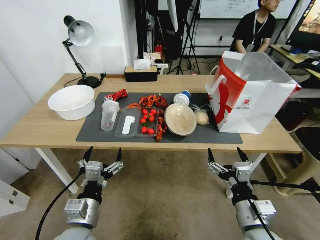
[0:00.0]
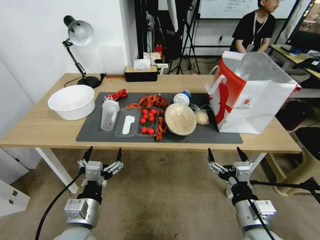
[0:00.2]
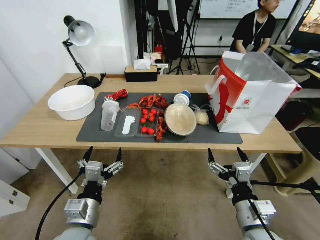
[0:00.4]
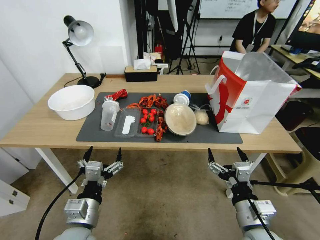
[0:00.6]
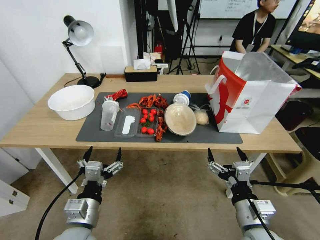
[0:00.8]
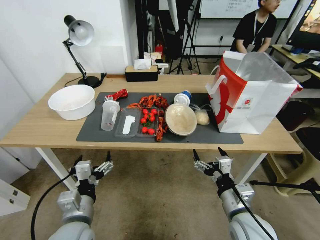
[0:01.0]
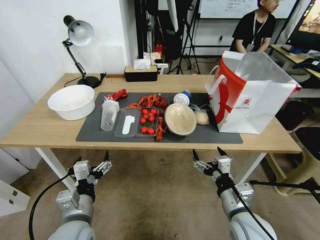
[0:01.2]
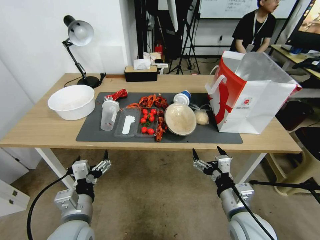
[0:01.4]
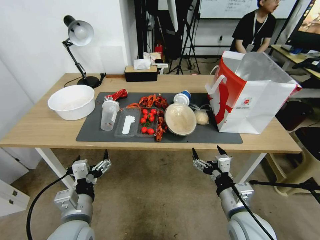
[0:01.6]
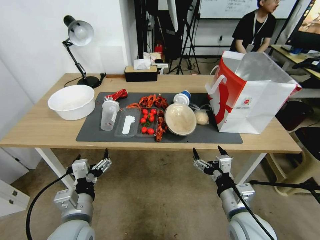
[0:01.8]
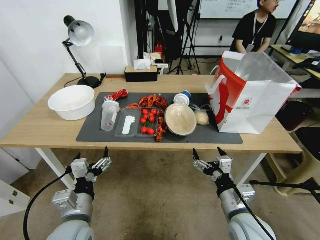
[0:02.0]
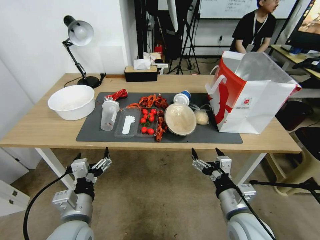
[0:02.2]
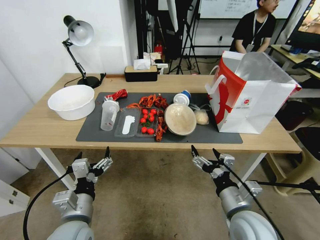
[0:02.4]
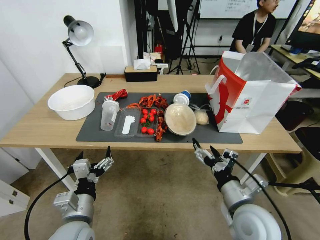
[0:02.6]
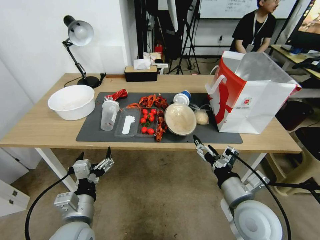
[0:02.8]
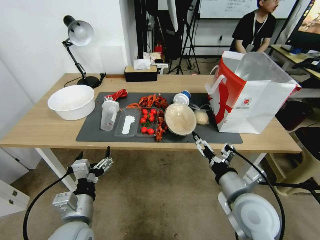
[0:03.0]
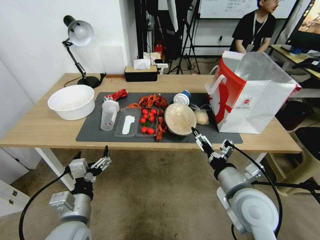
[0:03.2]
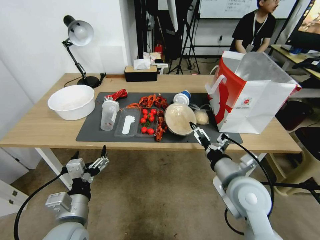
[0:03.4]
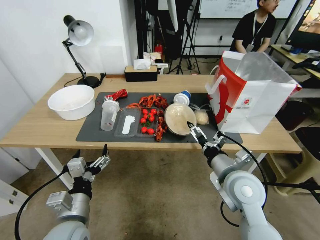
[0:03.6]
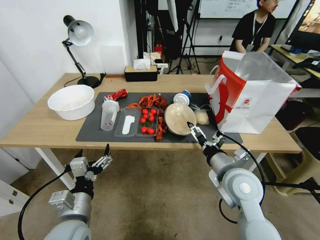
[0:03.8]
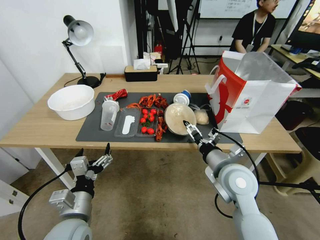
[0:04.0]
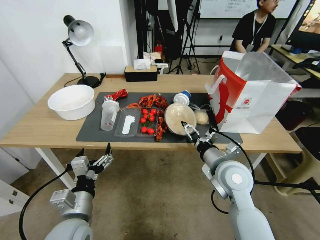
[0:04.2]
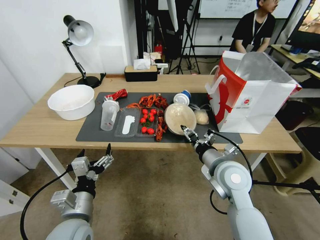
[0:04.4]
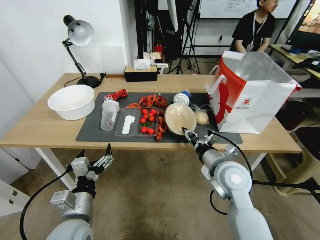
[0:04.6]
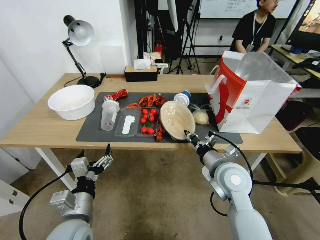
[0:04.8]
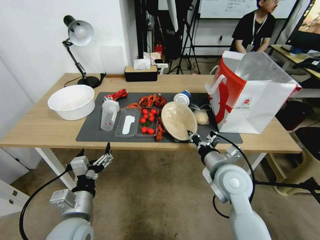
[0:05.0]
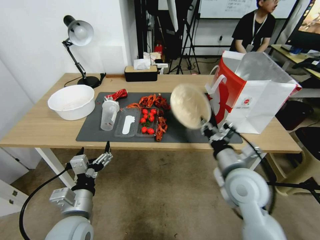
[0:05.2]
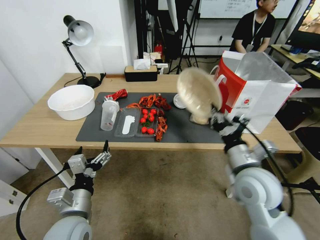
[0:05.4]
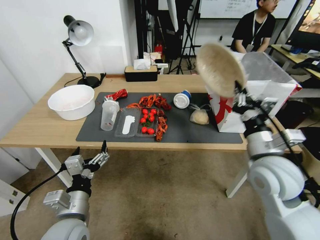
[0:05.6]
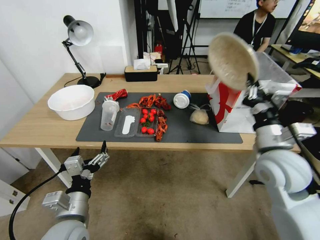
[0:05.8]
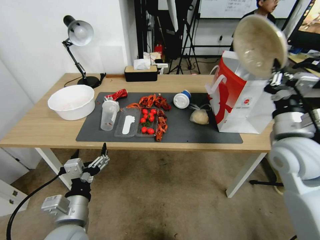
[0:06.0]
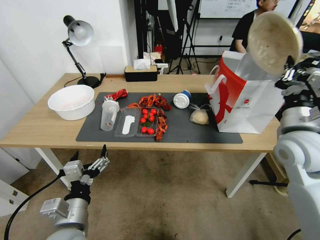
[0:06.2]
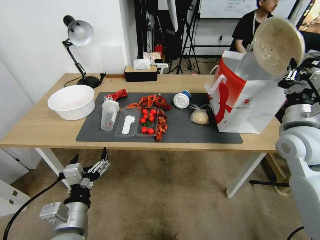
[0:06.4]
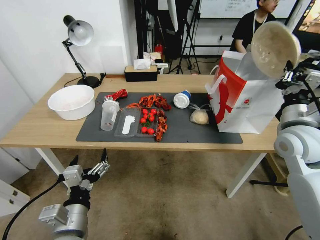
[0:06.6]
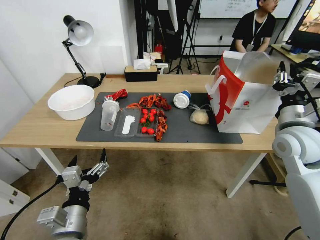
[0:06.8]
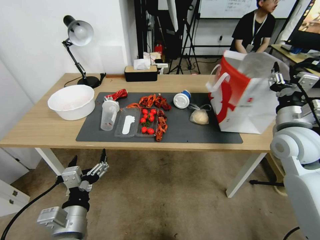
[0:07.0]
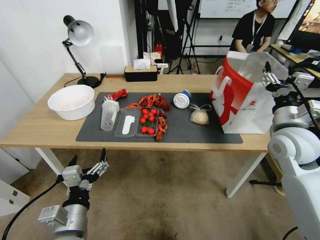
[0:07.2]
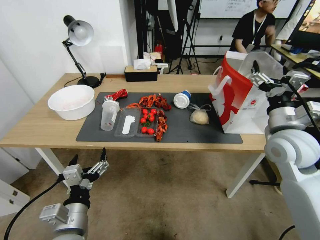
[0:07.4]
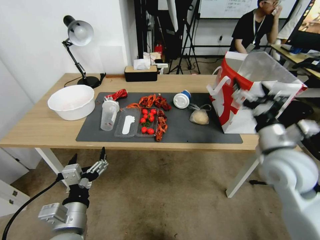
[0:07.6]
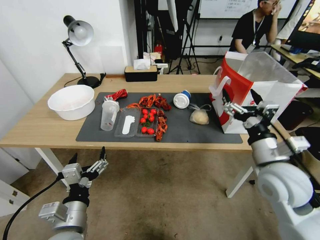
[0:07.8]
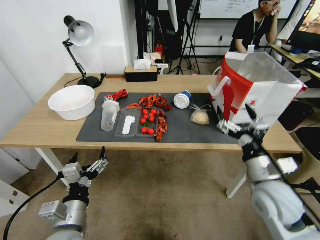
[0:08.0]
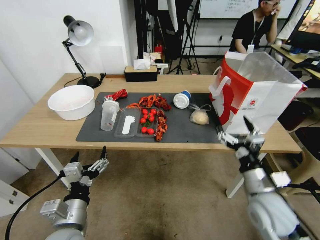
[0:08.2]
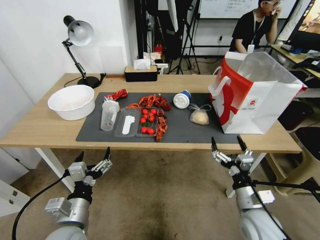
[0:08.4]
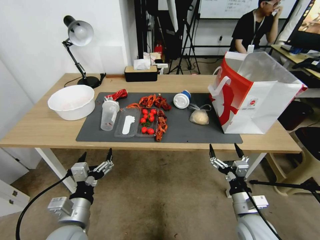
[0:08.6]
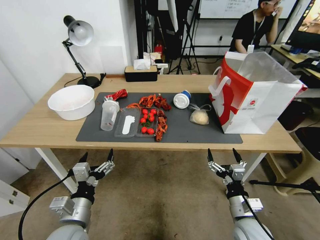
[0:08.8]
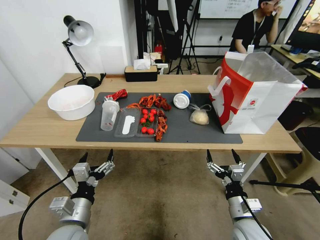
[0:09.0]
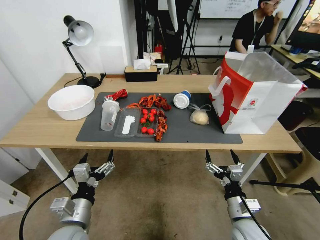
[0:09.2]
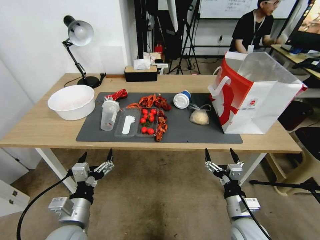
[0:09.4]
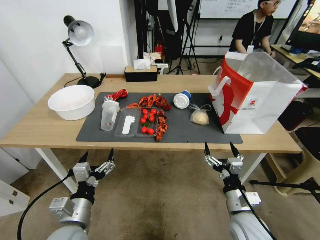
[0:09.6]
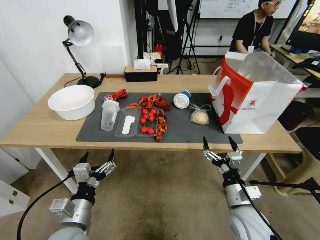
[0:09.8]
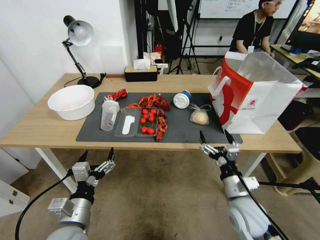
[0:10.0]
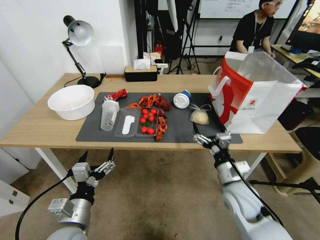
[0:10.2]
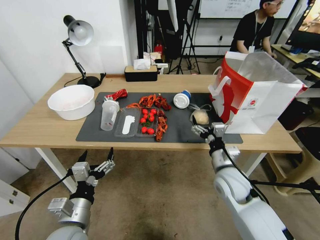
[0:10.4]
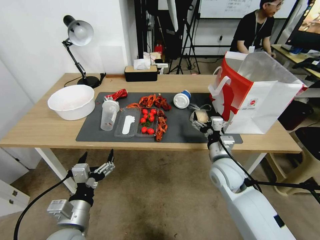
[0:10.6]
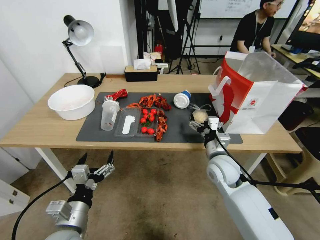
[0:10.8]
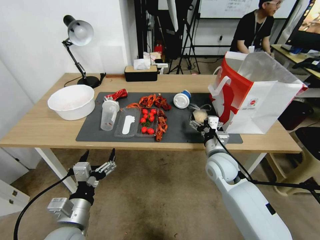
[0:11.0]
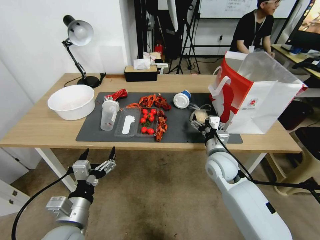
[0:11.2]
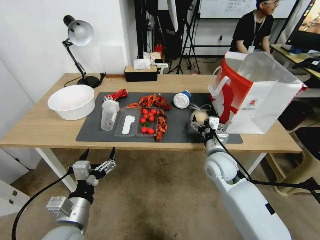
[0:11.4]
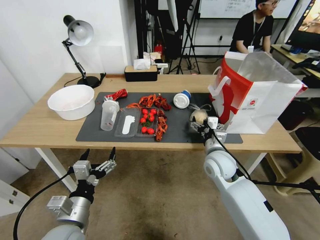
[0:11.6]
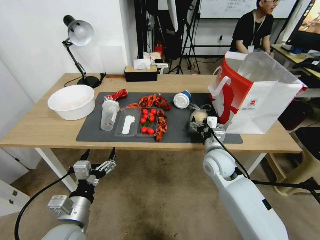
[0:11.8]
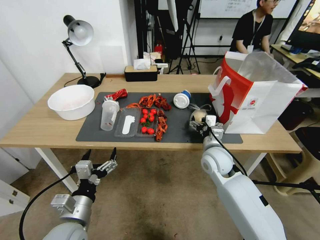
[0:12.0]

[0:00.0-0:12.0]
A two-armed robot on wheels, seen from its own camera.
0:03.0 to 0:04.4: The right gripper moves forward, some 10 cm, and closes its fingers.
0:04.4 to 0:06.0: The right gripper shifts about 15 cm to the right and upward, and closes up.
0:06.0 to 0:07.6: The right gripper opens.
0:07.6 to 0:09.0: The right gripper moves downward and backward, approximately 25 cm.
0:09.0 to 0:10.4: The right gripper shifts approximately 15 cm forward and upward.
0:10.4 to 0:12.0: The right gripper heads forward, covering about 5 cm.

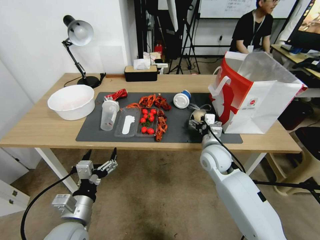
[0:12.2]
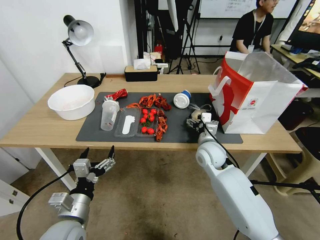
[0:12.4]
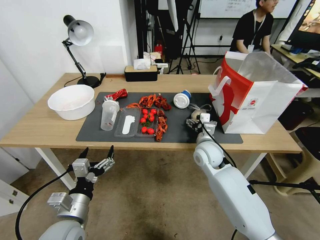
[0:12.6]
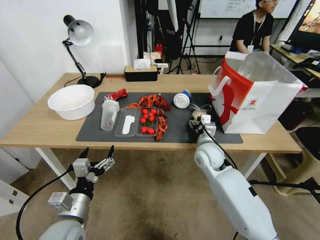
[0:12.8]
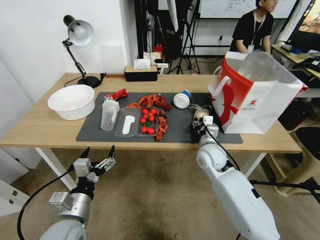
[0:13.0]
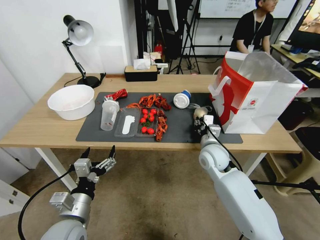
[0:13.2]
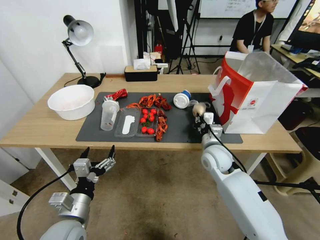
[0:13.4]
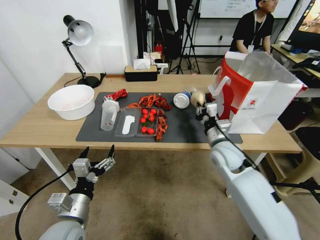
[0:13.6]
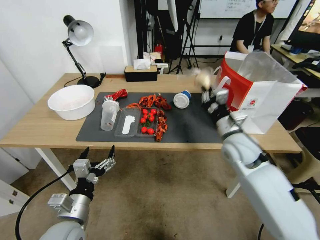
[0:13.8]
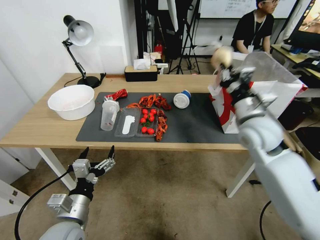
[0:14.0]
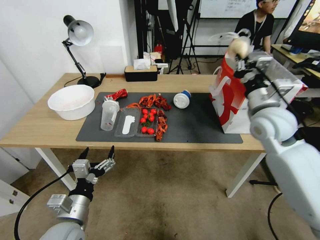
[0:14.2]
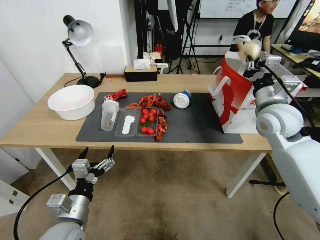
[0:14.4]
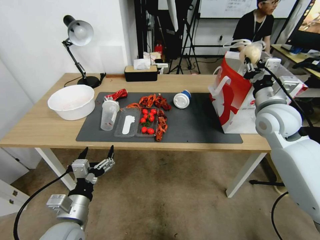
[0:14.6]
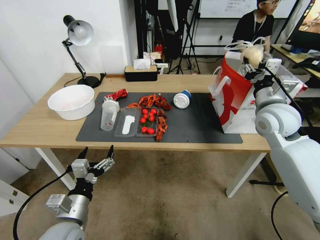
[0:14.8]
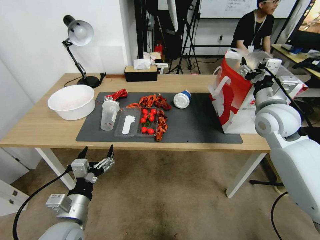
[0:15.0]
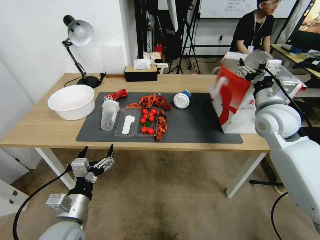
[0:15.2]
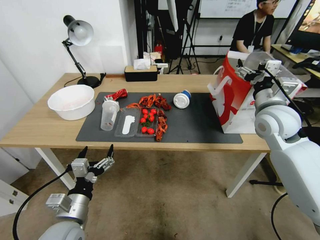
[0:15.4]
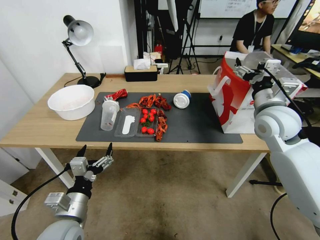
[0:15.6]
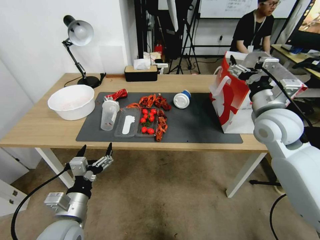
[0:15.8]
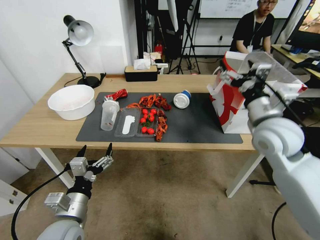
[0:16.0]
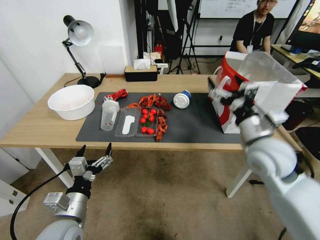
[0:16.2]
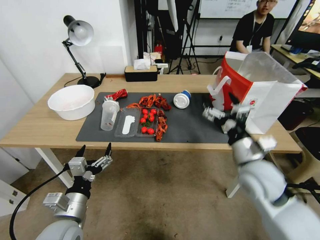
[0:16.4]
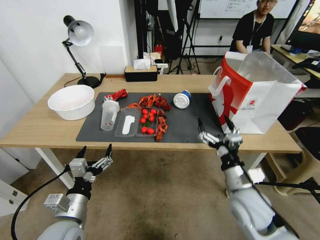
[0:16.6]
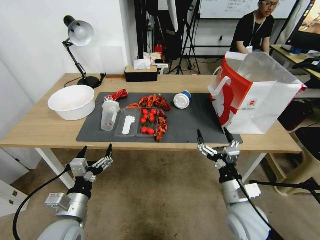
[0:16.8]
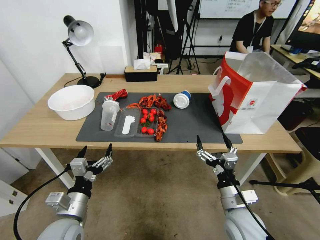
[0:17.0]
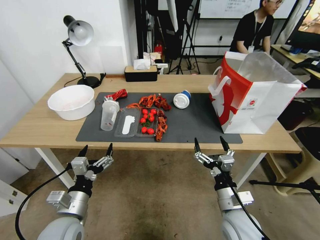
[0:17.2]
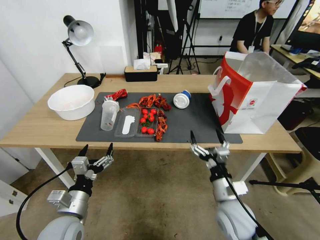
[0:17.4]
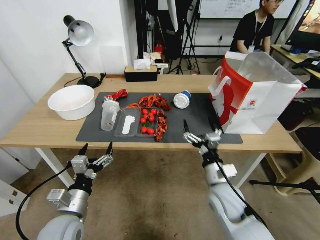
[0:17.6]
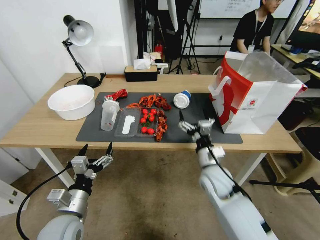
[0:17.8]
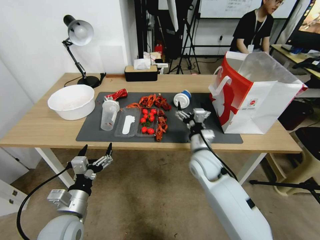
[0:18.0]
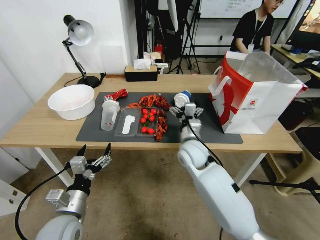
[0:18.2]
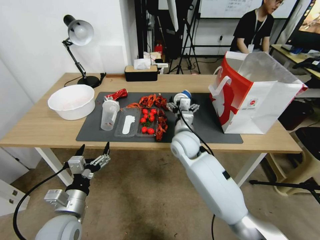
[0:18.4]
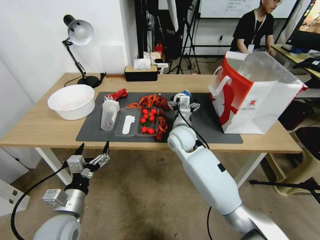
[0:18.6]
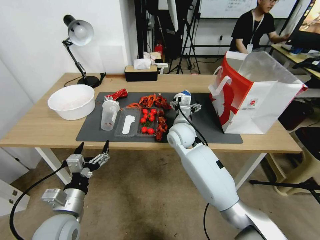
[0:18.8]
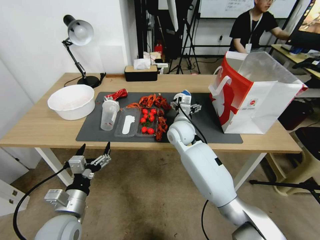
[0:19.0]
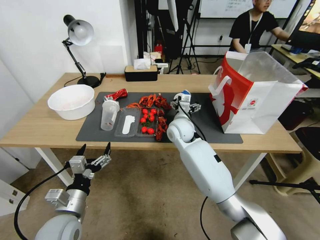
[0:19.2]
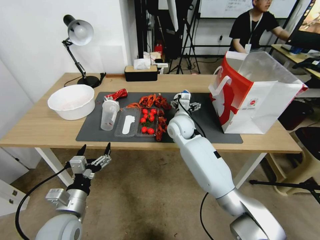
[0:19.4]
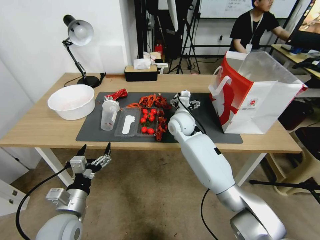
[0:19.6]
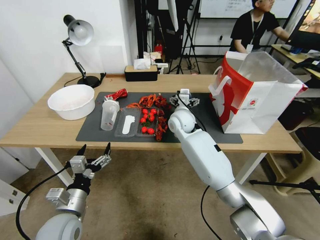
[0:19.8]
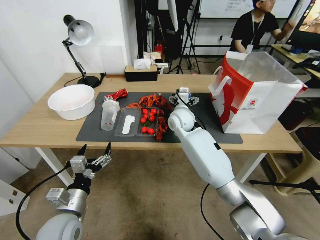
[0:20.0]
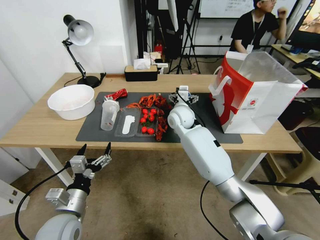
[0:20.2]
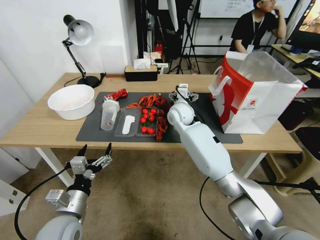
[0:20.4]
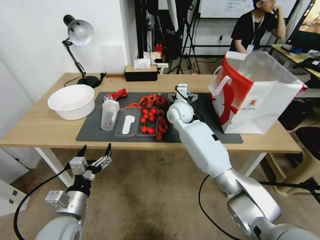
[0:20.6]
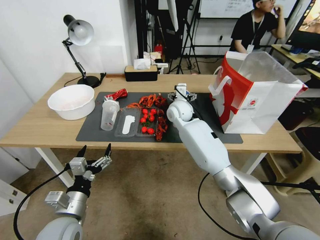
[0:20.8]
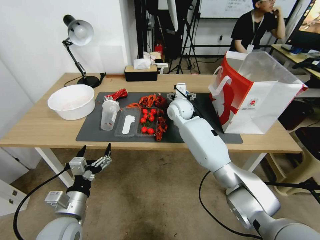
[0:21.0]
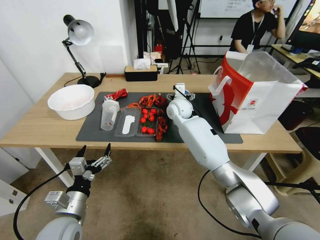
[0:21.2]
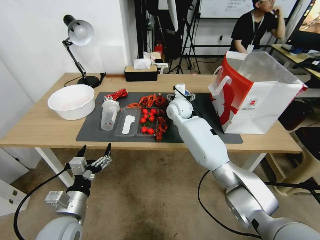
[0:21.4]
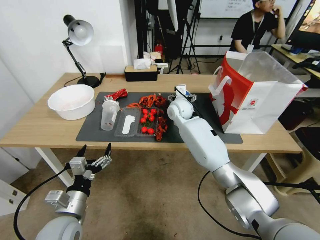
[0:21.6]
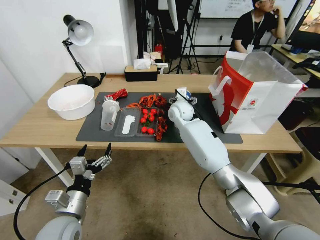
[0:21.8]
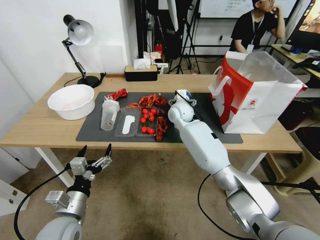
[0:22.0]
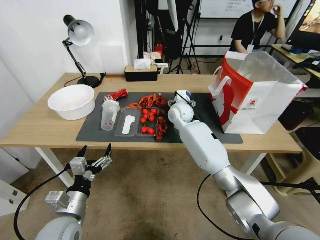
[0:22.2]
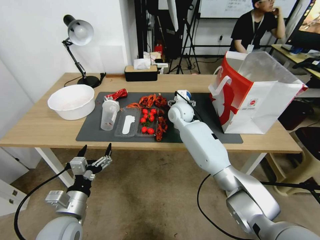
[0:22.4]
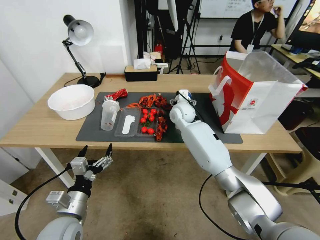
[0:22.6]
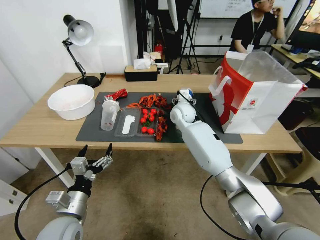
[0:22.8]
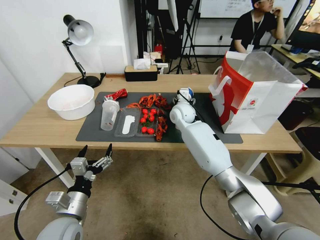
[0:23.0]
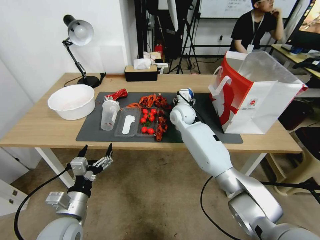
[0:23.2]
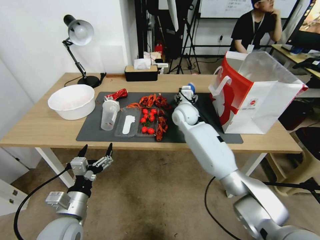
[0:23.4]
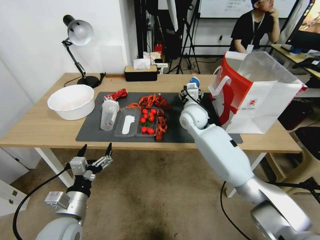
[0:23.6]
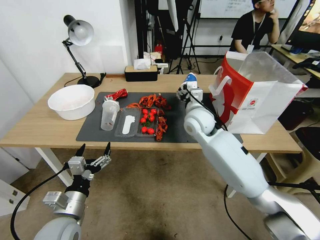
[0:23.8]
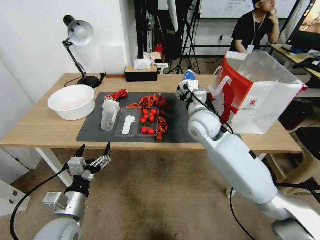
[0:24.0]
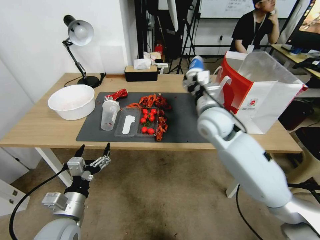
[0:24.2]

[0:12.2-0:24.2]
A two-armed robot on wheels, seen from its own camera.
0:12.2 to 0:13.8: The right gripper heads upward, covering some 10 cm, and closes.
0:13.8 to 0:15.2: The right gripper is displaced upward and to the right by approximately 10 cm, and opens.
0:15.2 to 0:16.6: The right gripper moves backward, downward and to the left, some 25 cm.
0:16.6 to 0:18.2: The right gripper shifts about 20 cm forward and to the left.
0:18.2 to 0:19.8: The right gripper travels forward by about 10 cm.
0:19.8 to 0:21.2: The right gripper travels forward by about 10 cm.
0:21.2 to 0:22.6: The grippers make only small movements.
0:22.6 to 0:24.2: The right gripper heads backward and upward, covering roughly 15 cm.
